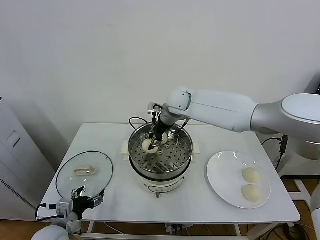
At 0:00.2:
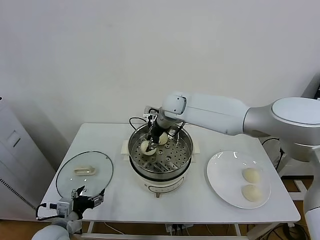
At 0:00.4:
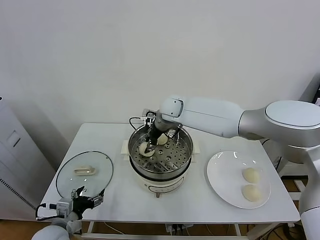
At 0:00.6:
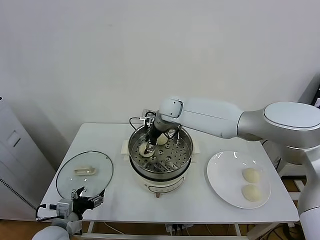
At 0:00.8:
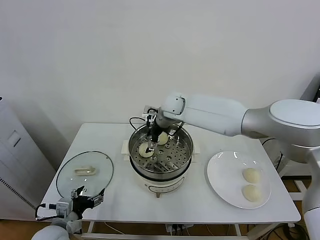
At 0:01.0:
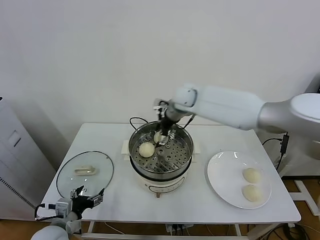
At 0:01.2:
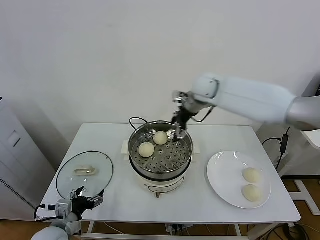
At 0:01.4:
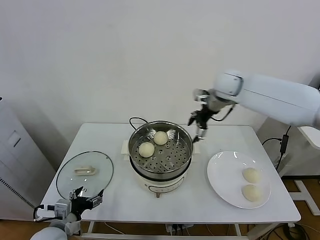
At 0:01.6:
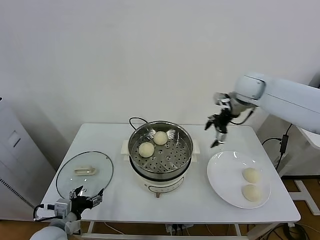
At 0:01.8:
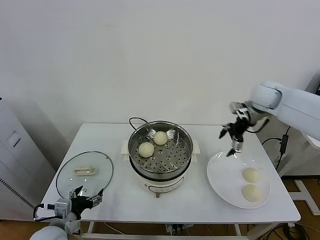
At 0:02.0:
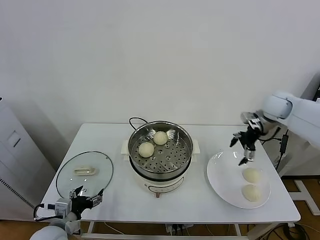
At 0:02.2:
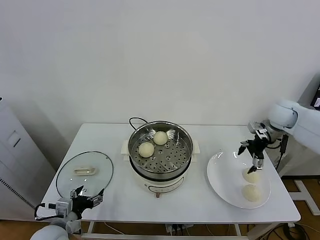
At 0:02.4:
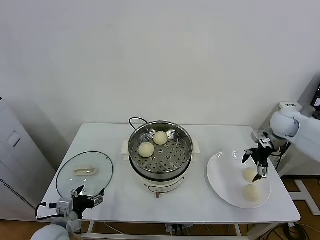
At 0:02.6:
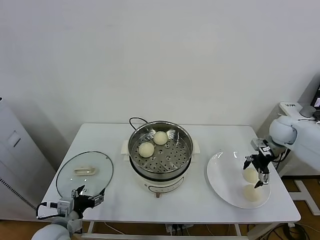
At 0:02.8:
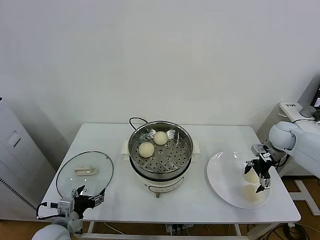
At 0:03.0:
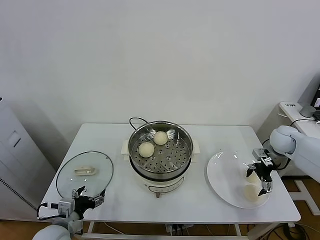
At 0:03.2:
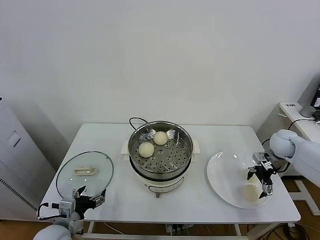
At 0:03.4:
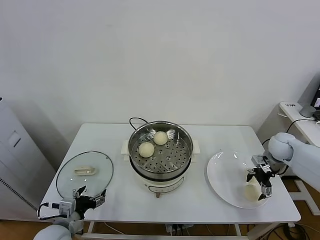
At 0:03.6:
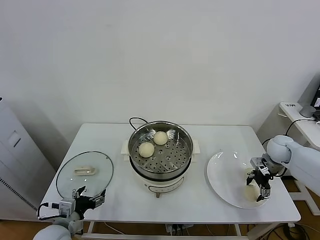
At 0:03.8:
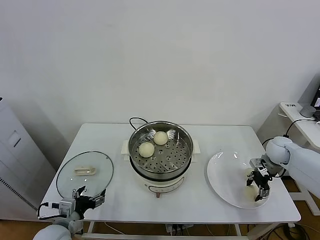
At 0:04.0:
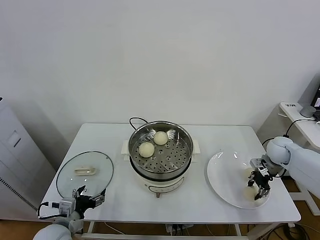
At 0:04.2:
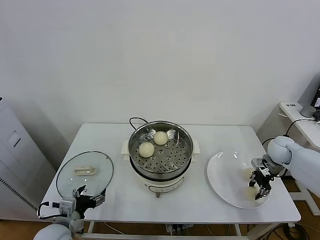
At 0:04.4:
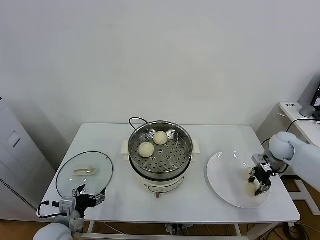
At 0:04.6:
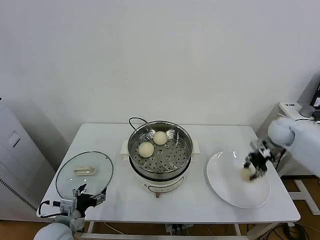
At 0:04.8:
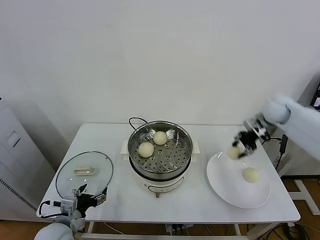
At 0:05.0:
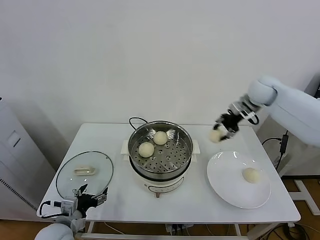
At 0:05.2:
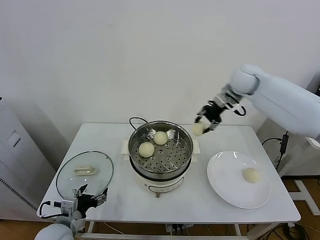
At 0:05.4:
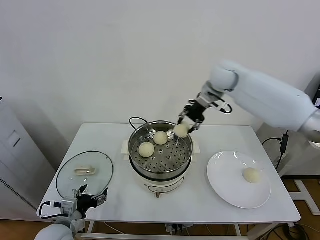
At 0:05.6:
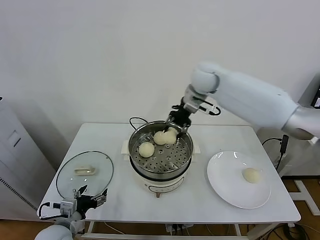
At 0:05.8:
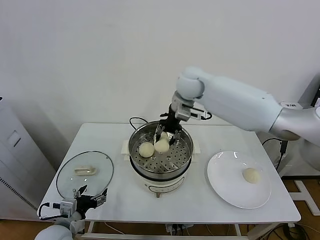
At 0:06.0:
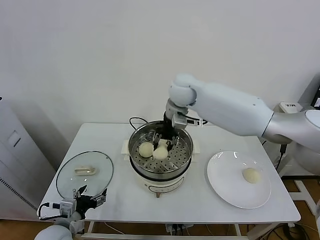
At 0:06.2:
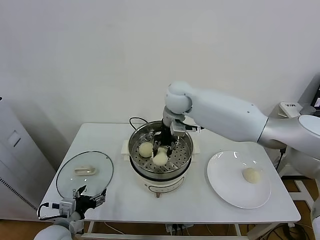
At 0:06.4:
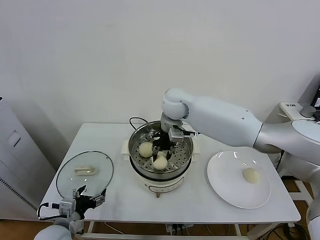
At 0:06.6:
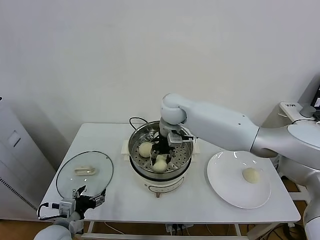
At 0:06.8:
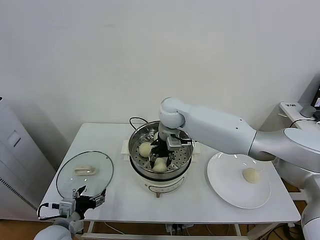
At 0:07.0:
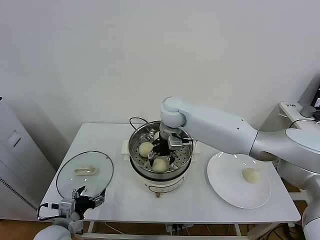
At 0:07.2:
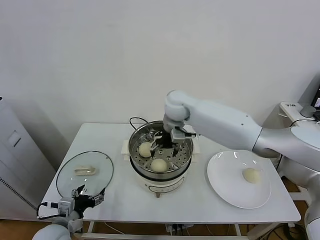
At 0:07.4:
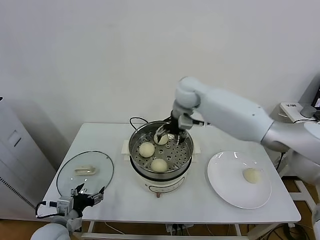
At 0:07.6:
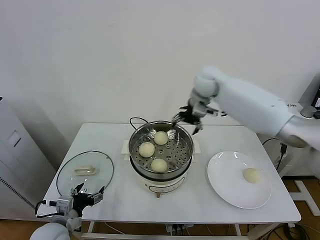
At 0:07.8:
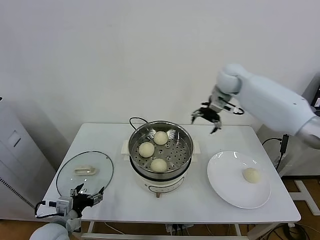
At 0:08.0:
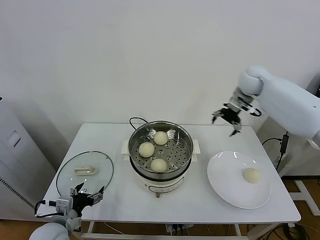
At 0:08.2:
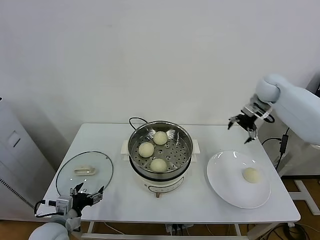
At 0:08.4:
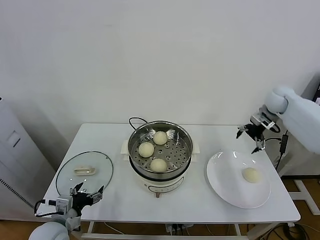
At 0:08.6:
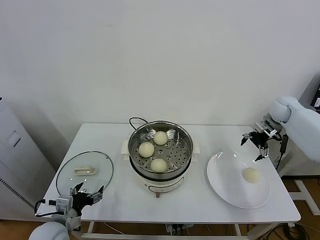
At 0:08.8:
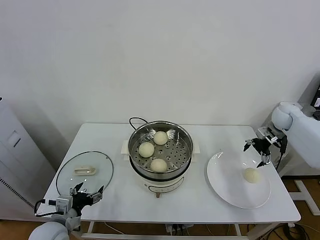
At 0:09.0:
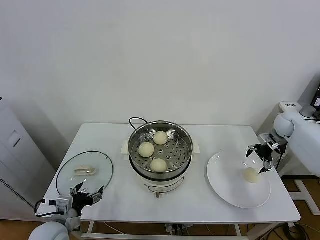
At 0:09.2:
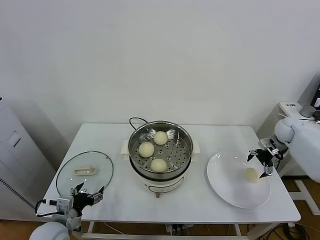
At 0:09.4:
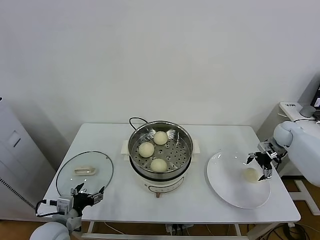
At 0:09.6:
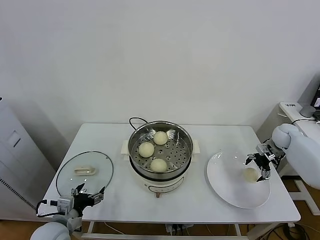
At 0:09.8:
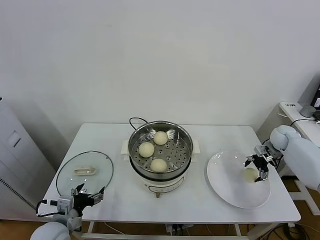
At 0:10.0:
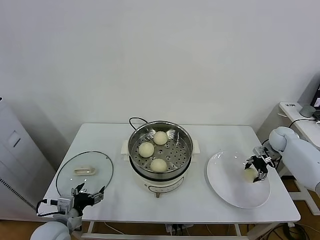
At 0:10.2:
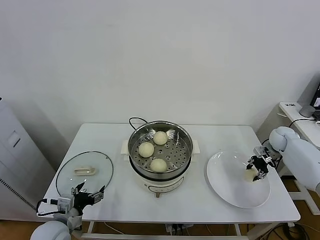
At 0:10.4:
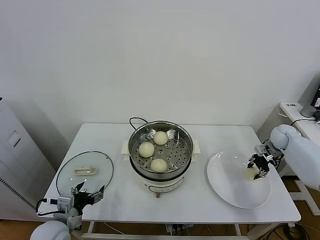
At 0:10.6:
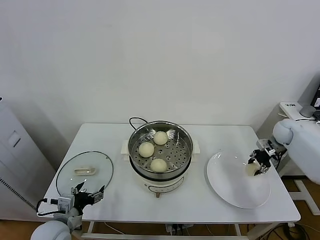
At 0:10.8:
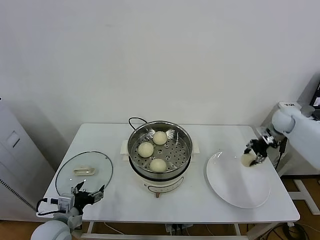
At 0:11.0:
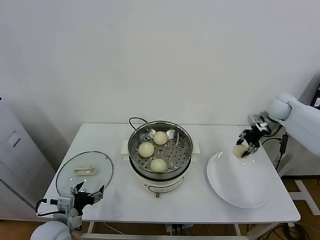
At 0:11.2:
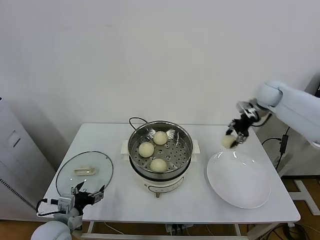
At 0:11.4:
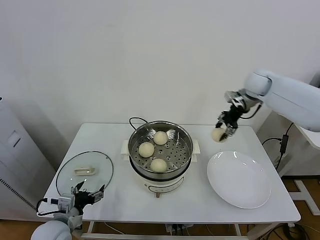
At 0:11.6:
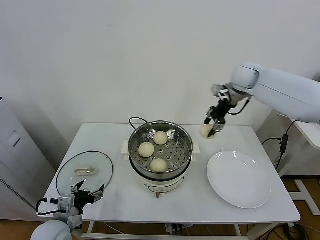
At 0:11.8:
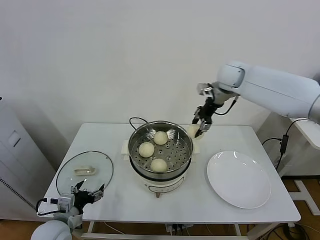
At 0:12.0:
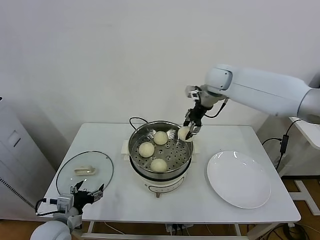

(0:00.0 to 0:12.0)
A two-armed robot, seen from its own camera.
Task of the whole recording: take steamed baozi put them in steamer.
Step, 0:01.0 - 0:03.8: Grasp the baozi in the plate with right gripper.
Step, 0:04.0 - 0:07.0: Place the baozi on the steamer with right gripper.
Step, 0:07.4 - 0:10.0: Grasp the baozi in the plate with right gripper.
0:00.0 - 0:01.6: The right gripper goes some 25 cm to the right, and opens up.
0:01.6 - 0:03.0: The right gripper moves downward and to the right, approximately 25 cm.
0:03.0 - 0:04.4: The right gripper closes its fingers.
0:04.4 - 0:06.0: The right gripper is displaced to the left and upward by approximately 40 cm.
0:06.0 - 0:07.6: The right gripper goes some 10 cm to the right, and opens its fingers.
0:07.6 - 0:09.0: The right gripper goes about 35 cm to the right and downward.
0:09.0 - 0:10.4: The right gripper moves downward, roughly 5 cm, and closes up.
0:10.4 - 0:12.0: The right gripper moves to the left and upward, approximately 40 cm.

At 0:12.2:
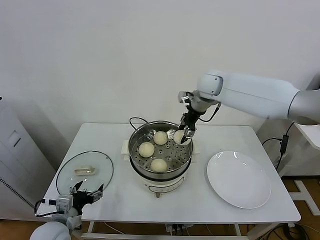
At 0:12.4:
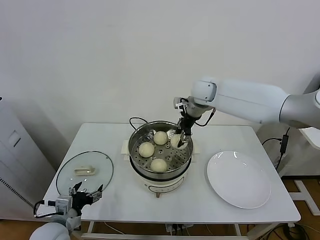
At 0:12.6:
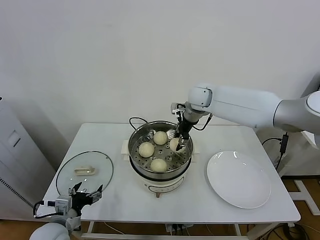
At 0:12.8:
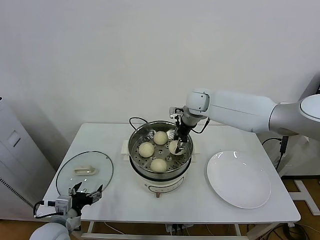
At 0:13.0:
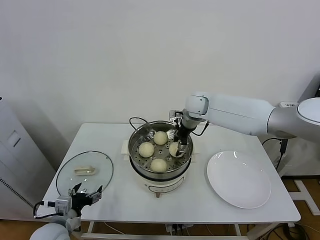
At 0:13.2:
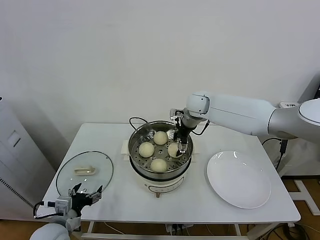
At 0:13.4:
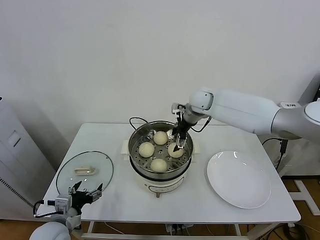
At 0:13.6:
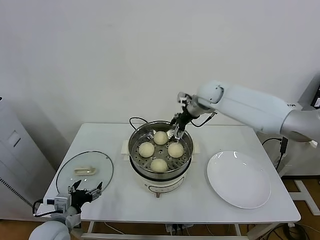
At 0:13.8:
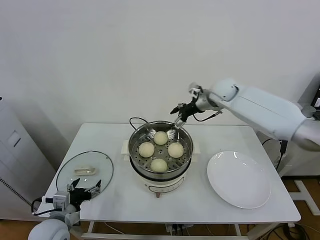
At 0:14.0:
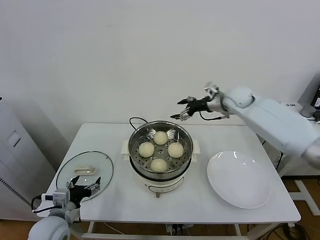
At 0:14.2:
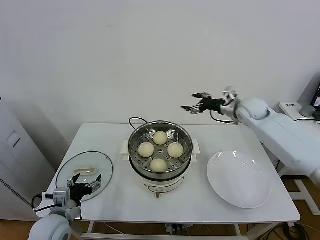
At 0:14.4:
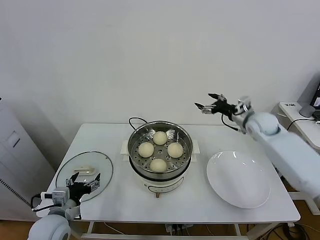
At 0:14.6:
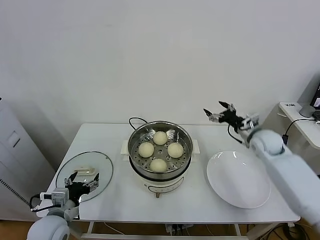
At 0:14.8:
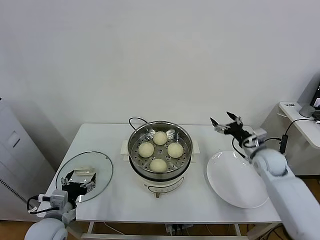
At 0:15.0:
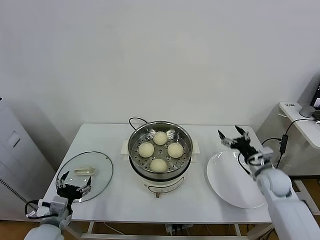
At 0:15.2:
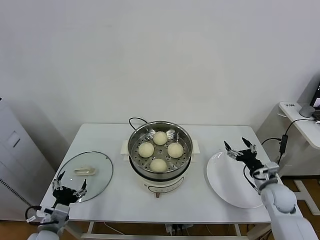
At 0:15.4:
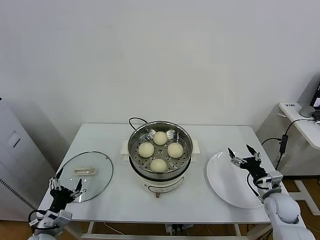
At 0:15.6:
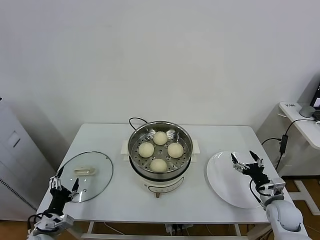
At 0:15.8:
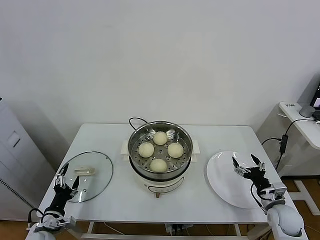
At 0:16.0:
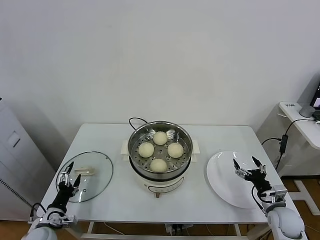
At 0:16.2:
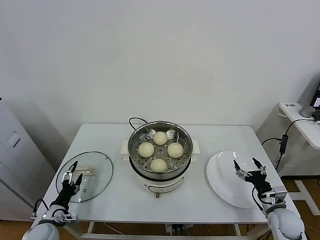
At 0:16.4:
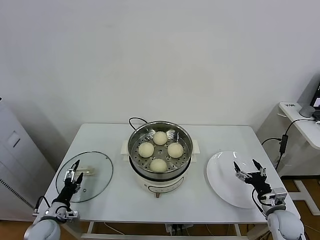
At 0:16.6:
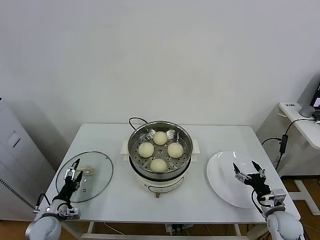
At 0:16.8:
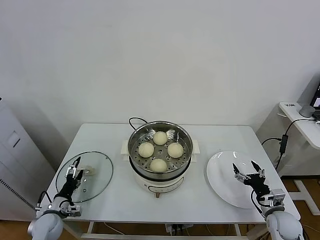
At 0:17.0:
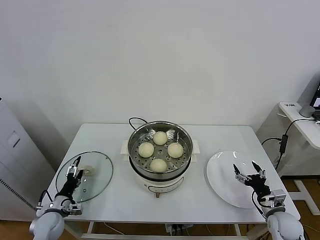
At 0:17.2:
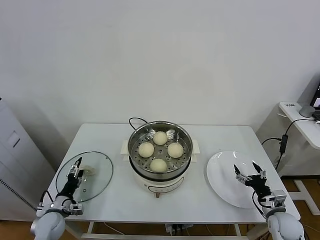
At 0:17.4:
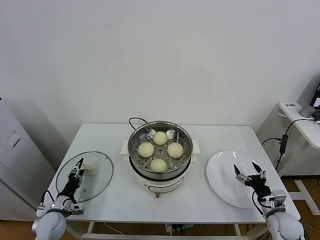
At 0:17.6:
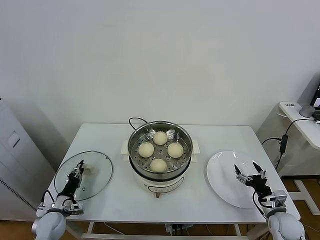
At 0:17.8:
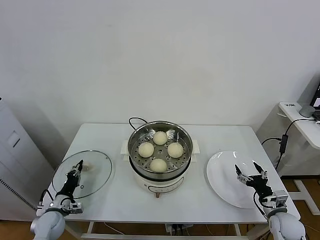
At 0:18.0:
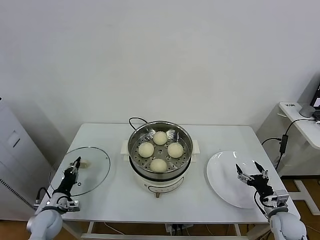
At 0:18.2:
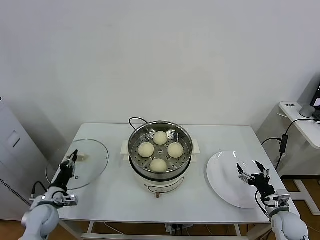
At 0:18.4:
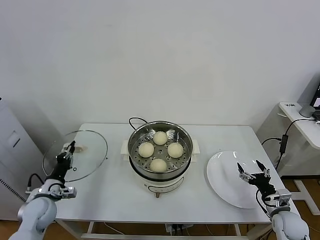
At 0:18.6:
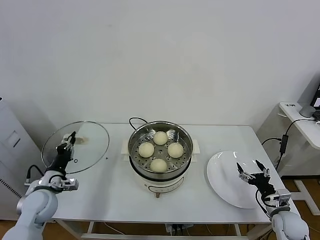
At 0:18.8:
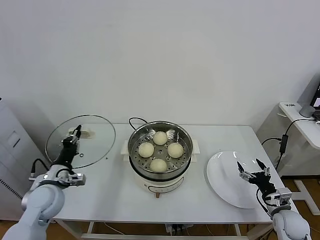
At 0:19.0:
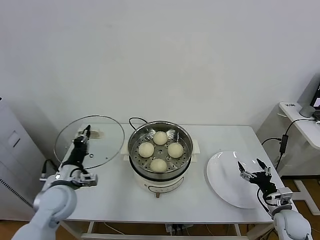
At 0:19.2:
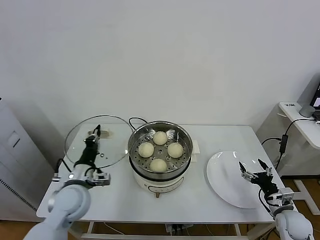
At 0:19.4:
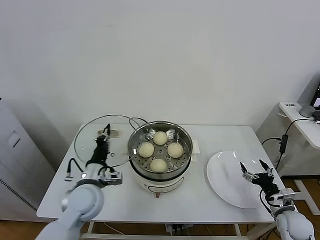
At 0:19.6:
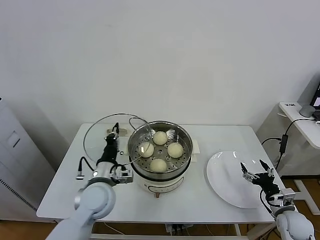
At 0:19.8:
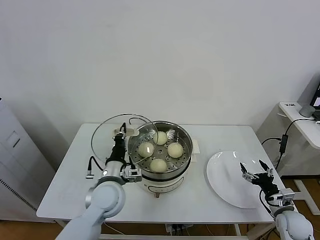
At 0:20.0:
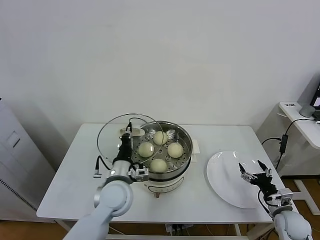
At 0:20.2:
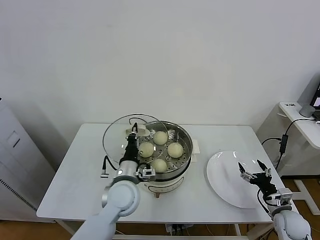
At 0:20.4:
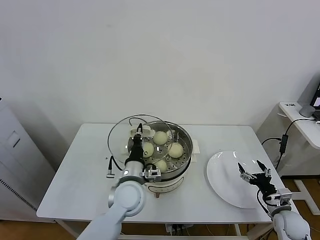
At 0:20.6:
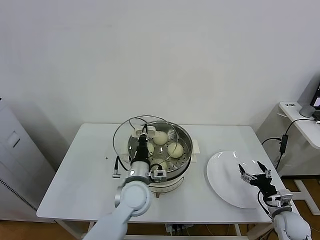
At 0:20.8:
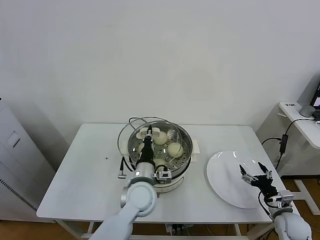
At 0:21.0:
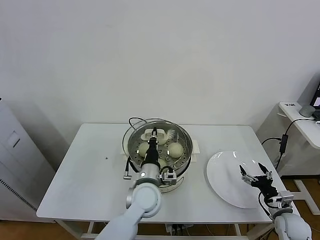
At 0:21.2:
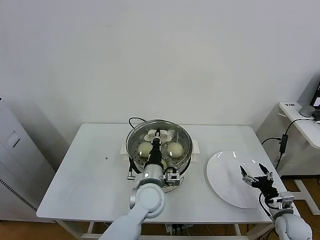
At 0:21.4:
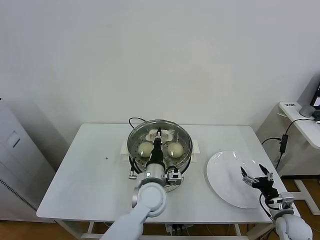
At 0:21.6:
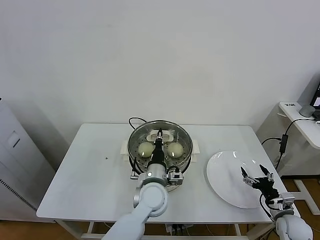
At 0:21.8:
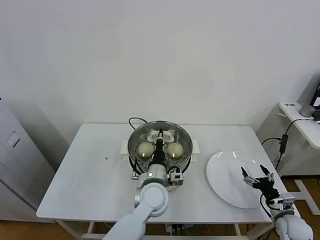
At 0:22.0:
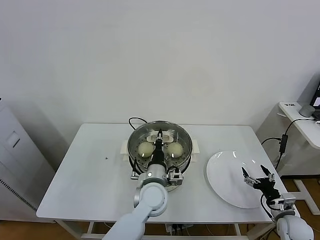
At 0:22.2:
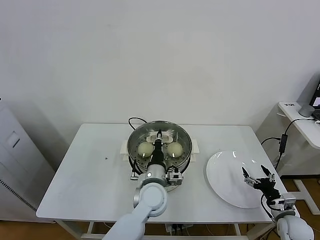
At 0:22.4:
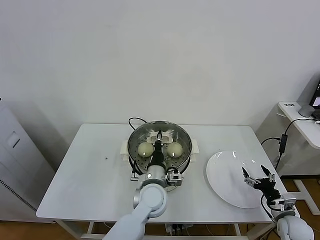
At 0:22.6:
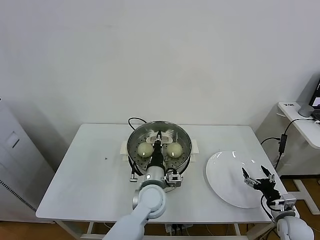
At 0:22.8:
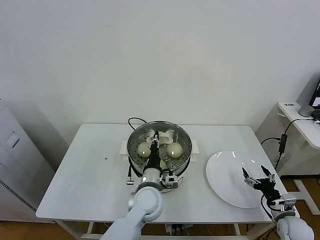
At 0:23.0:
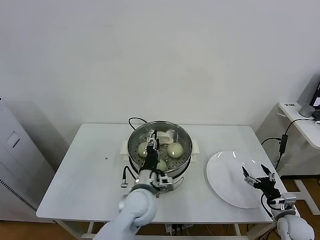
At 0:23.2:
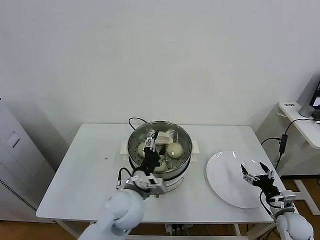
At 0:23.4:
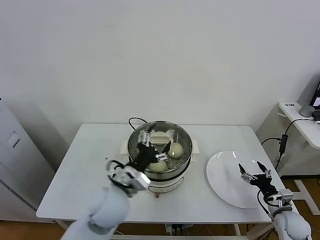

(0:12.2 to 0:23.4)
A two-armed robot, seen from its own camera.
Task of the whole recording: take steamed baozi put them in steamer.
Step, 0:13.4 - 0:17.8: Grasp the pot lid with left gripper.
Step, 0:18.2 - 0:23.2: Place the pot lid on the steamer with left gripper.
0:12.2 - 0:13.8: The right gripper shifts approximately 5 cm to the right, and opens its fingers.
0:13.8 - 0:15.4: The right gripper is displaced downward, backward and to the right by approximately 40 cm. Meanwhile the left gripper moves approximately 5 cm.
0:15.4 - 0:17.0: The left gripper shifts roughly 15 cm forward, downward and to the left. The right gripper moves some 5 cm.
0:17.0 - 0:18.6: The left gripper shifts roughly 10 cm upward, and closes up.
0:18.6 - 0:20.2: The left gripper goes approximately 25 cm to the right.
0:20.2 - 0:21.8: The left gripper travels to the right by roughly 10 cm.
0:21.8 - 0:23.4: The left gripper travels to the left and upward by some 10 cm, and opens up.
